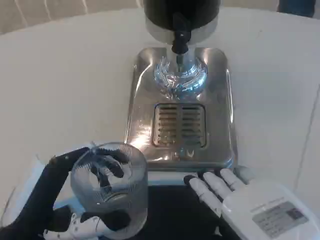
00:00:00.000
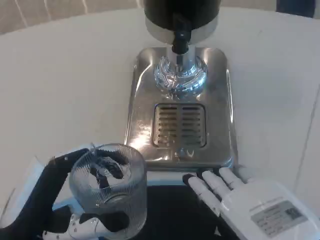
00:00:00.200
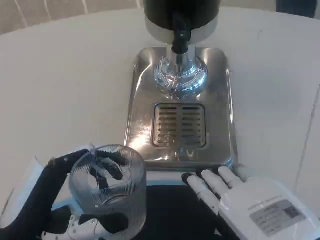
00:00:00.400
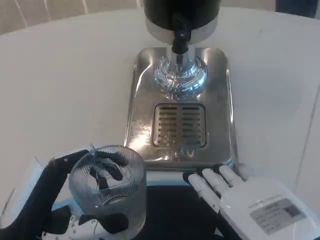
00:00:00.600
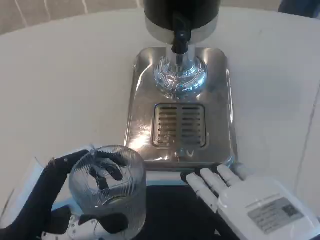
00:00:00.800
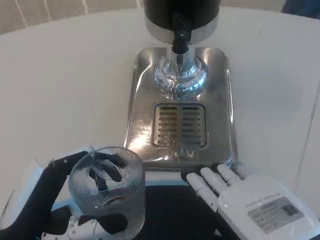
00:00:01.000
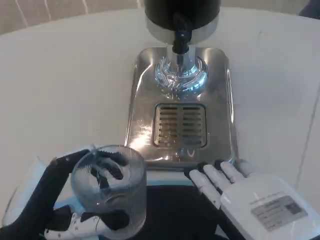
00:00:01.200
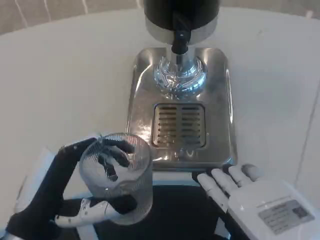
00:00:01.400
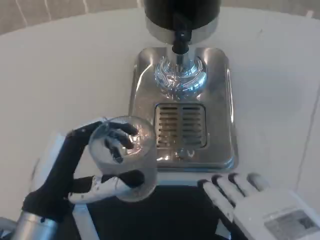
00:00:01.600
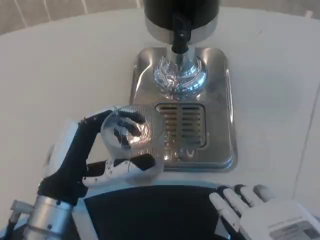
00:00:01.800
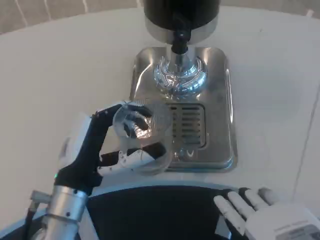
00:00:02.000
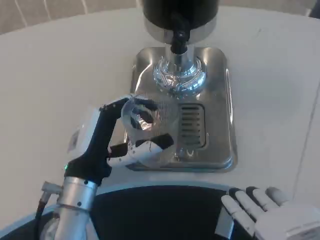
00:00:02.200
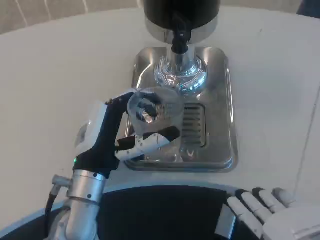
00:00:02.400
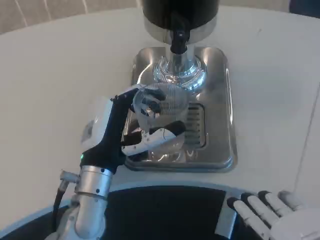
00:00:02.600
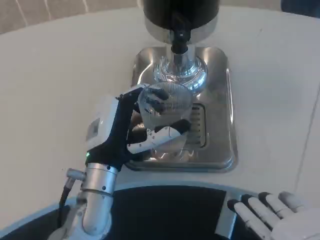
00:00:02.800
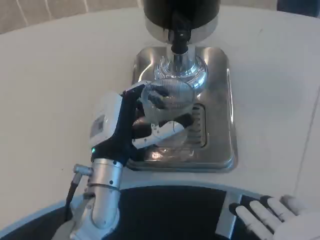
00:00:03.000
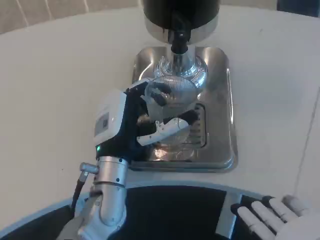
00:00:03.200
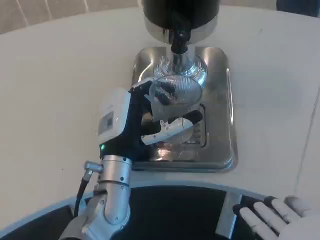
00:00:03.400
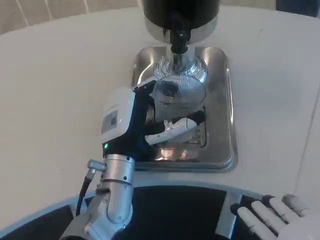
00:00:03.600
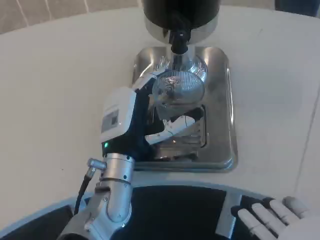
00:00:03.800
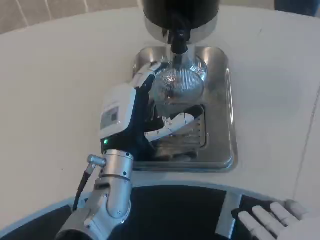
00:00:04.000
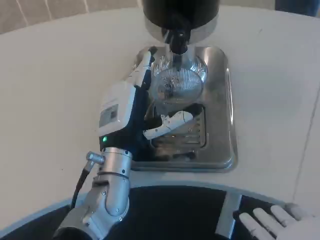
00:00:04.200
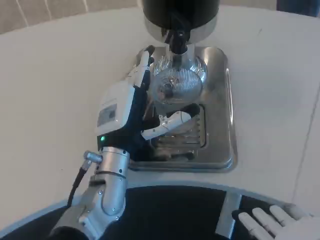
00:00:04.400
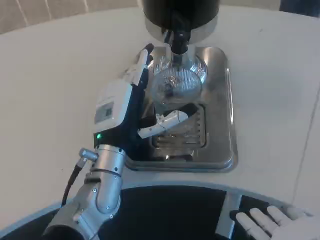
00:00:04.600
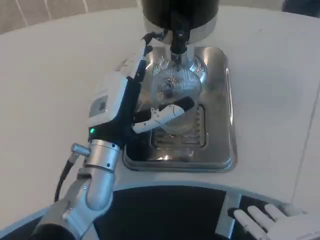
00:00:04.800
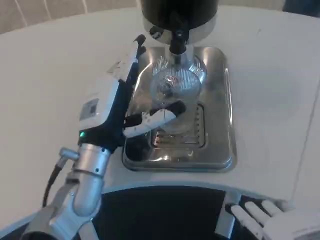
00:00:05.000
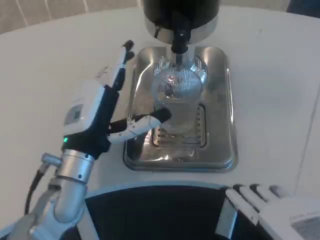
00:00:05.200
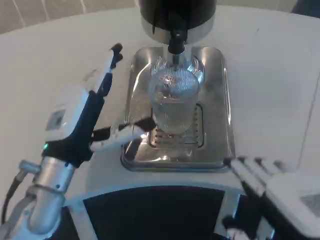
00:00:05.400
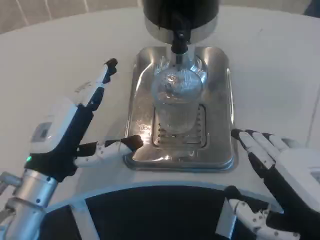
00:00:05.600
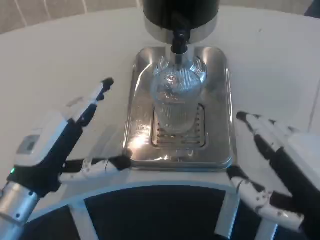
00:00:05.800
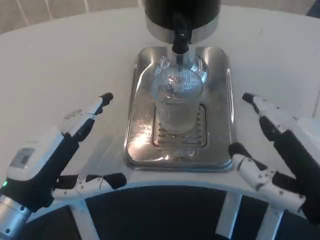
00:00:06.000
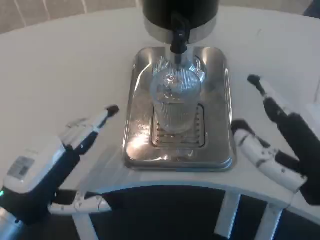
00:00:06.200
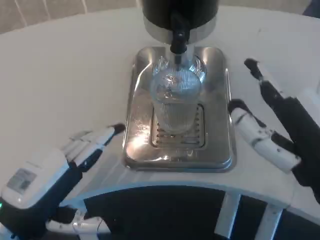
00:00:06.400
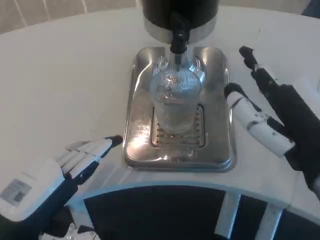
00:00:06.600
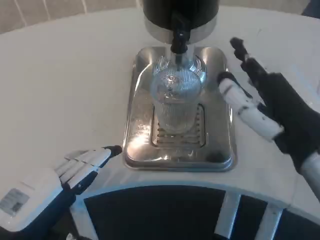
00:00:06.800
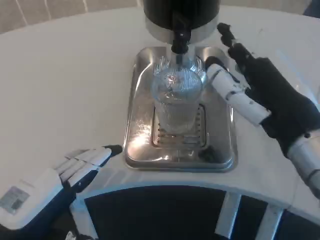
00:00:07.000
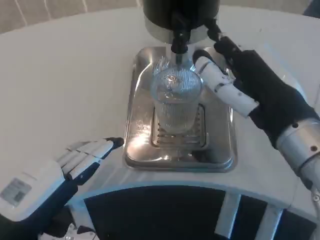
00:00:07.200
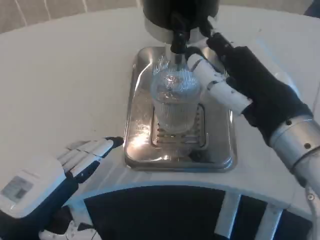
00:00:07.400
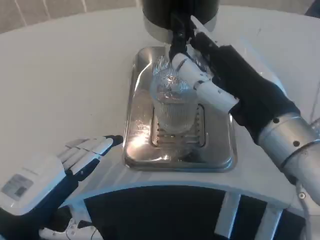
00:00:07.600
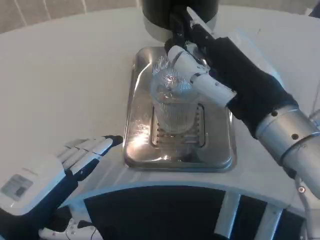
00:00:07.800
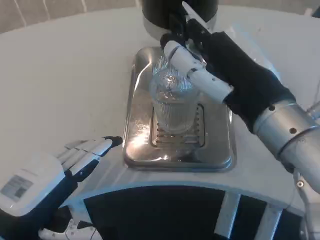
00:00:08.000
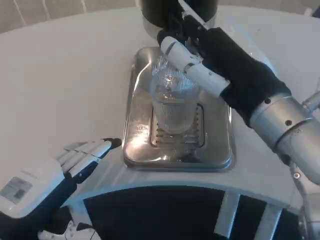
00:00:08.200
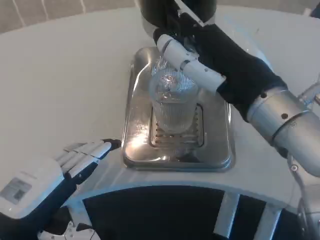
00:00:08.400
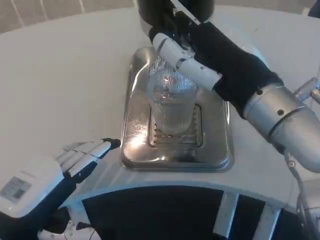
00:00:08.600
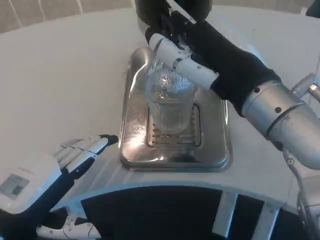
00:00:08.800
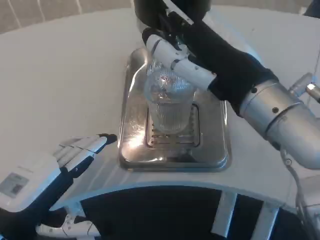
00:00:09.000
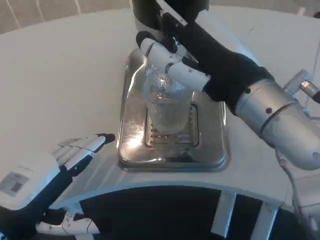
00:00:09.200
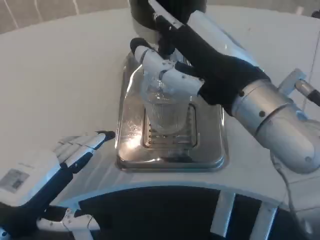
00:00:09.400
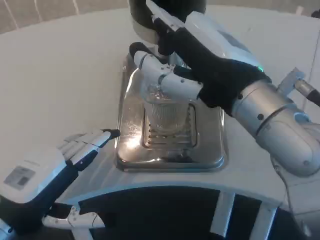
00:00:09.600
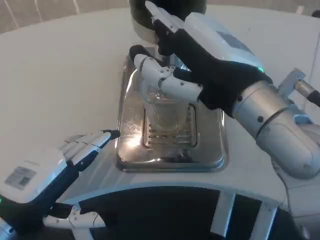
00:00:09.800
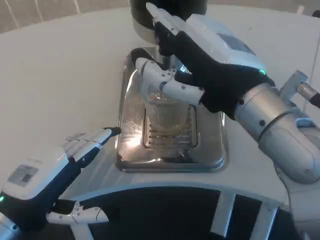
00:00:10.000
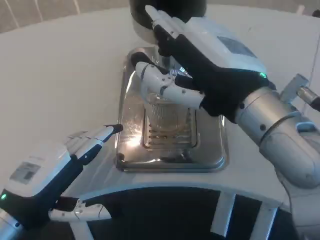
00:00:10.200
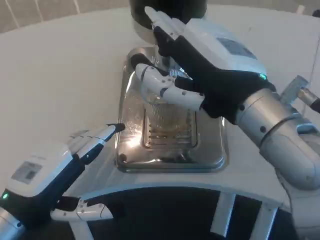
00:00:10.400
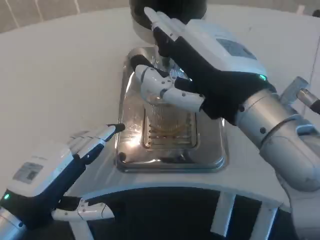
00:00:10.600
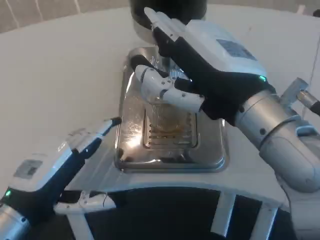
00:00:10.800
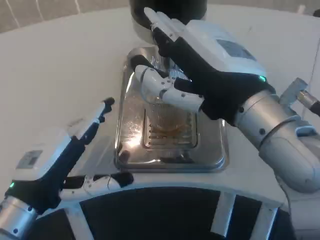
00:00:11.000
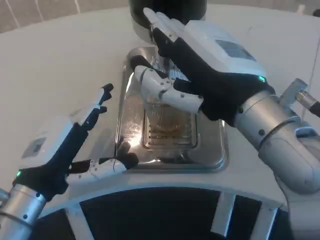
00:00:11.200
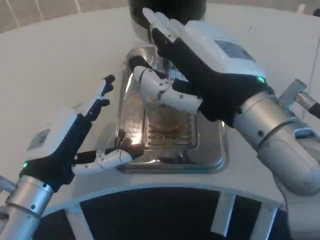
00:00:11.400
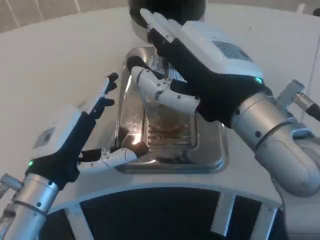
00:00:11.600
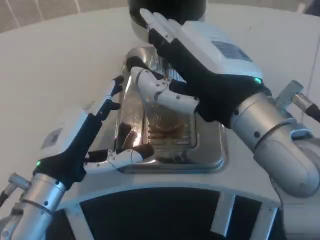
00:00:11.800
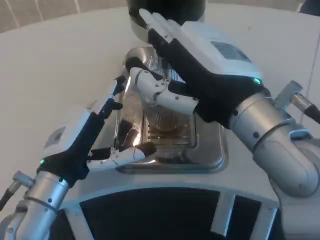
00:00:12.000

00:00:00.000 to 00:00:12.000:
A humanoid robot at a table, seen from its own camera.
Task of the whole recording: Grasp the cup under the faucet to collect the drink, then remove the cup.
00:00:00.000 to 00:00:01.600: The left hand goes roughly 5 cm forward.
00:00:01.600 to 00:00:03.000: The left hand is displaced forward and to the right by about 15 cm.
00:00:03.000 to 00:00:04.400: The hands move only a little.
00:00:04.400 to 00:00:06.000: The left hand shifts roughly 15 cm to the left and backward, while the right hand heads forward, covering approximately 5 cm.
00:00:06.000 to 00:00:07.600: The right hand travels forward by some 10 cm.
00:00:10.400 to 00:00:12.000: The left hand goes roughly 5 cm to the right.

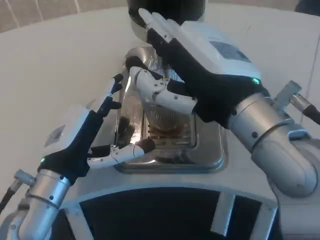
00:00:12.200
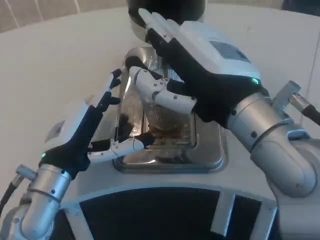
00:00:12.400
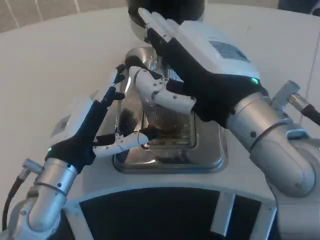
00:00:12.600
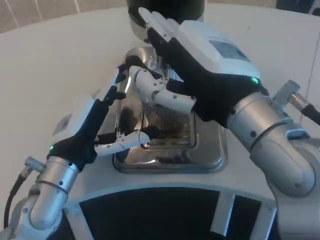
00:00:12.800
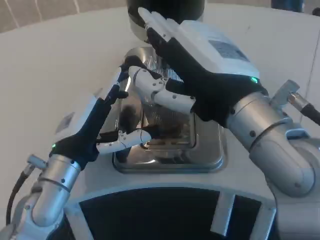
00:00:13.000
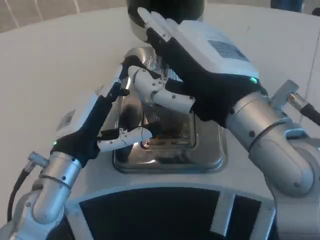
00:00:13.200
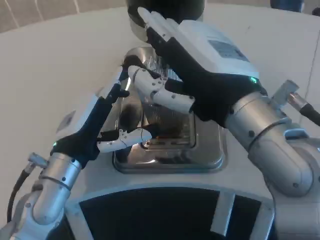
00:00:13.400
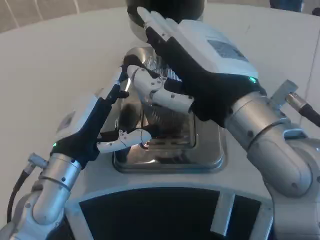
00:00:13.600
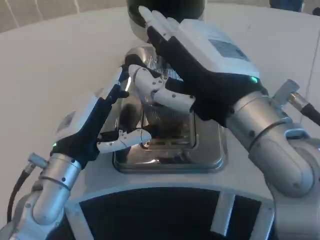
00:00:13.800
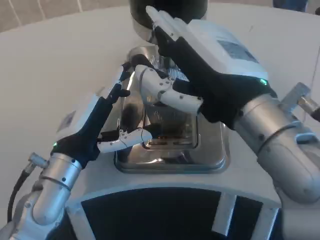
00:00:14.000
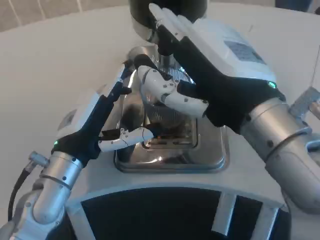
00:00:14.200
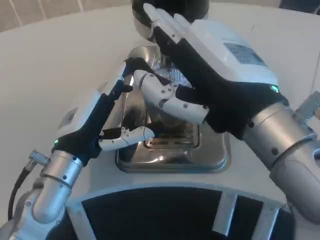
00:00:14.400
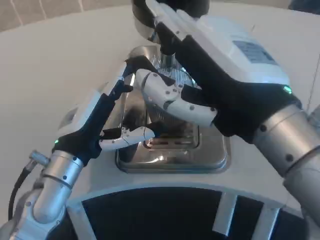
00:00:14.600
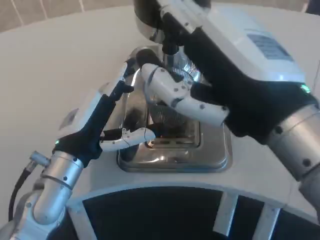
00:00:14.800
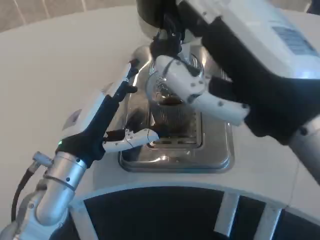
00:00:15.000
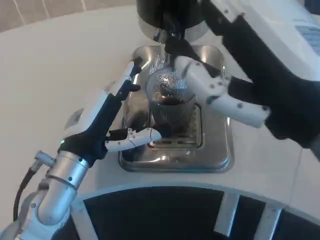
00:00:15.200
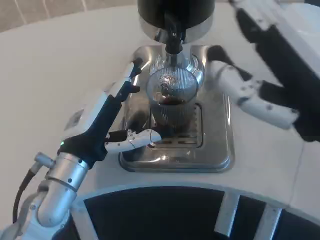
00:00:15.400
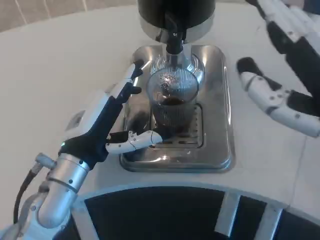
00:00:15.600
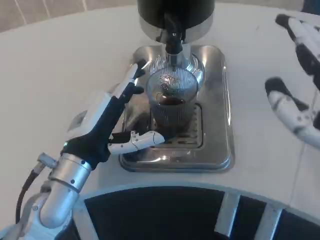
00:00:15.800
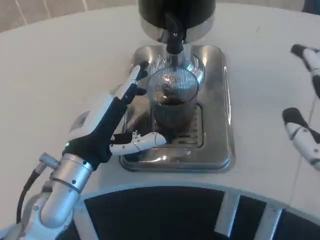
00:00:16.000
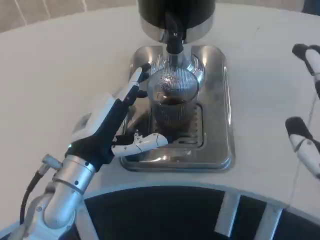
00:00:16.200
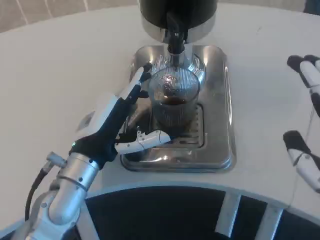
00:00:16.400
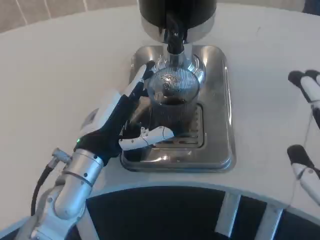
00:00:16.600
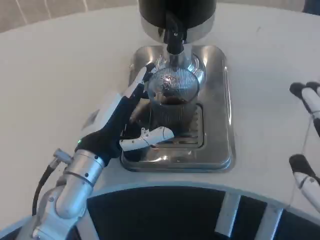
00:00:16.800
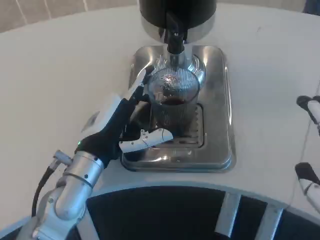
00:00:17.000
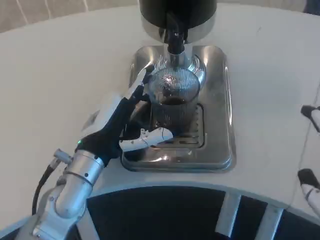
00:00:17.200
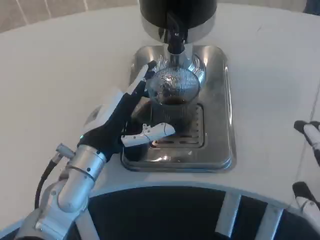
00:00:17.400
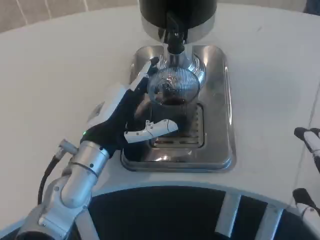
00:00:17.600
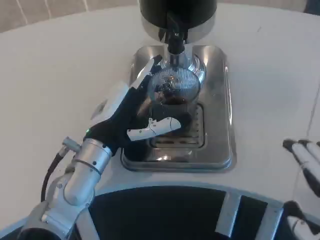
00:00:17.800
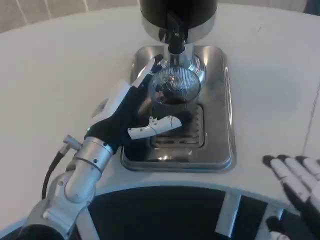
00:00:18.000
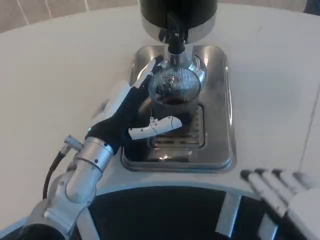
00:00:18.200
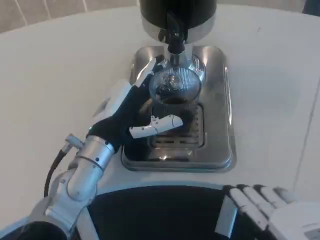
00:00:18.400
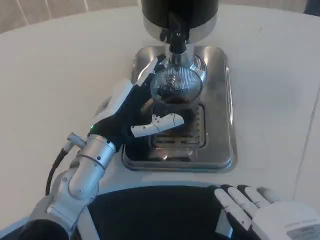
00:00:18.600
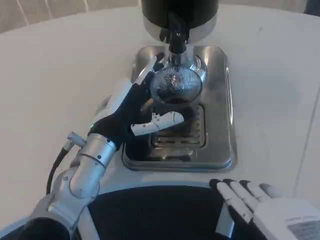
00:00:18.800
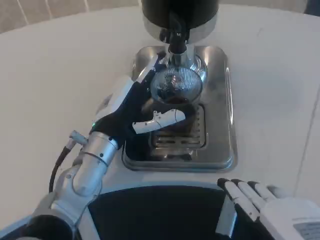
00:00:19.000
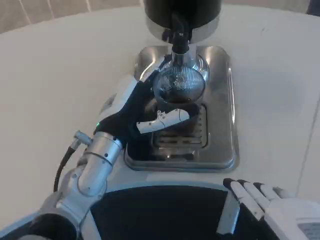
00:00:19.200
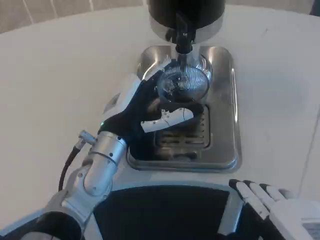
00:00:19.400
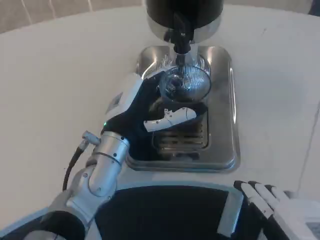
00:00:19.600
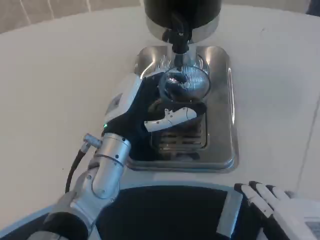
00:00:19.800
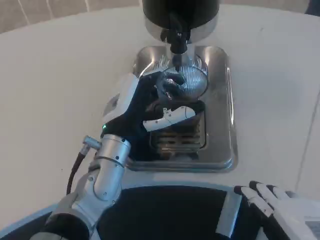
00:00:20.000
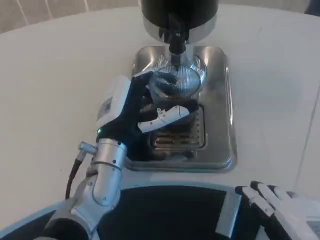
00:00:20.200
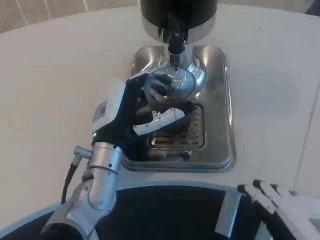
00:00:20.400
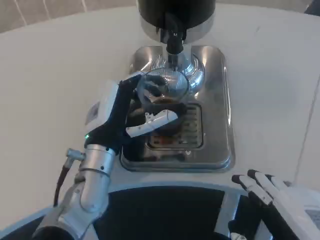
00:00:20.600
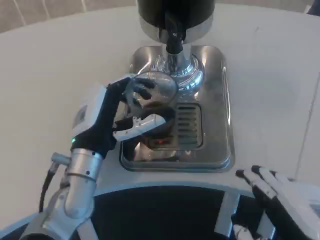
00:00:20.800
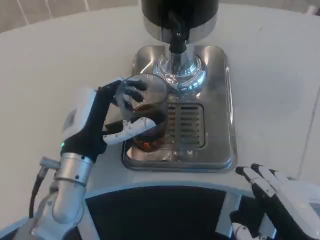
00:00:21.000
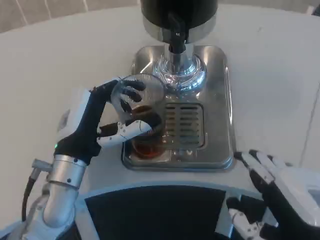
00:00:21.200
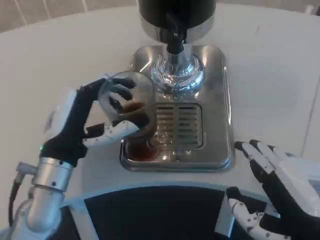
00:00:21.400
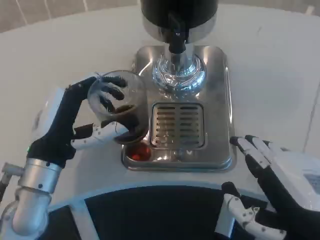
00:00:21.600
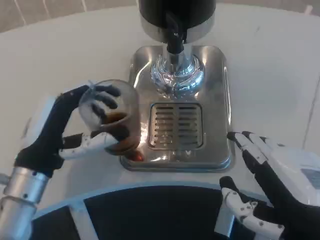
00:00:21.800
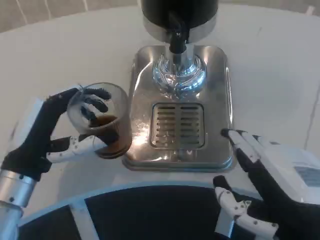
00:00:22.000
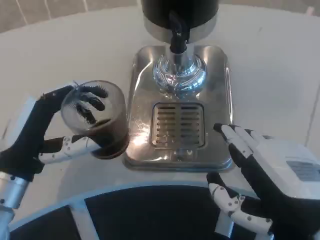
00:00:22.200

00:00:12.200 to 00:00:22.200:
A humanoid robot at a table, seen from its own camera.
Task of the whole recording: Grasp the cup under the faucet to collect the drink, then remove the cup.
00:00:12.200 to 00:00:13.600: There are only small adjustments of the hands.
00:00:13.600 to 00:00:15.000: The right hand travels backward by about 5 cm.
00:00:15.000 to 00:00:16.400: The right hand heads to the right, downward and backward, covering approximately 10 cm.
00:00:20.800 to 00:00:22.200: The left hand shifts roughly 10 cm to the left and backward.
